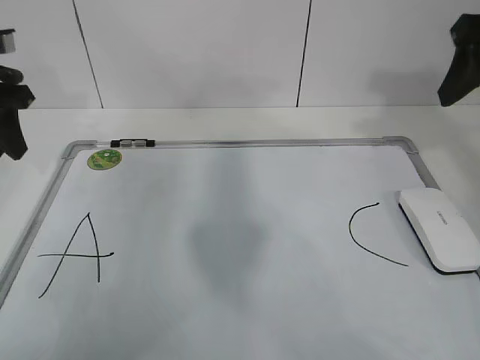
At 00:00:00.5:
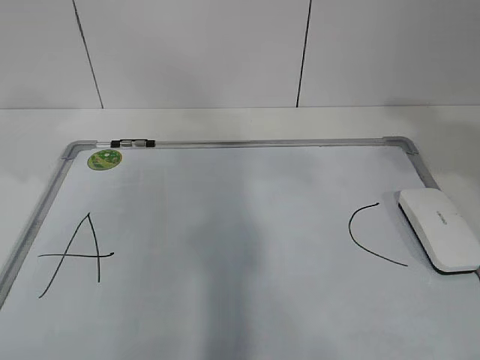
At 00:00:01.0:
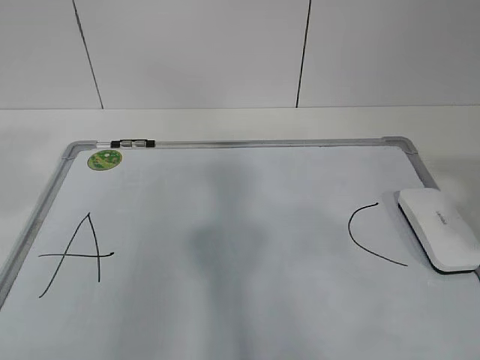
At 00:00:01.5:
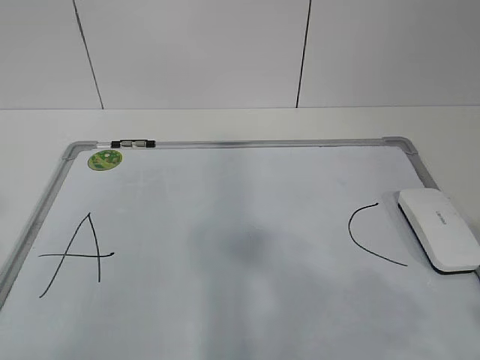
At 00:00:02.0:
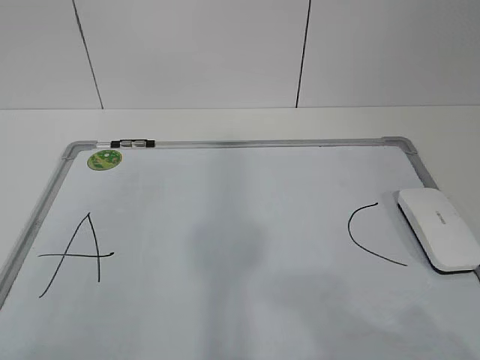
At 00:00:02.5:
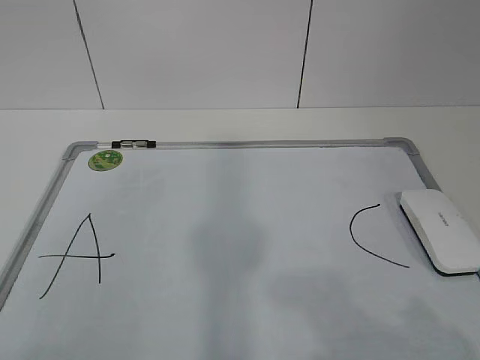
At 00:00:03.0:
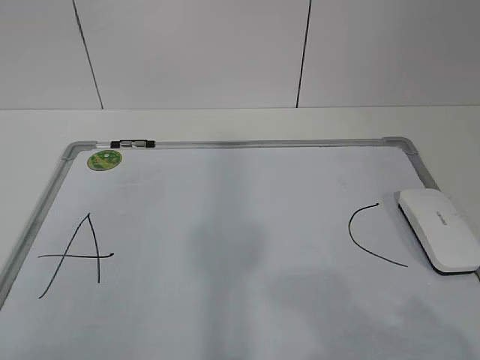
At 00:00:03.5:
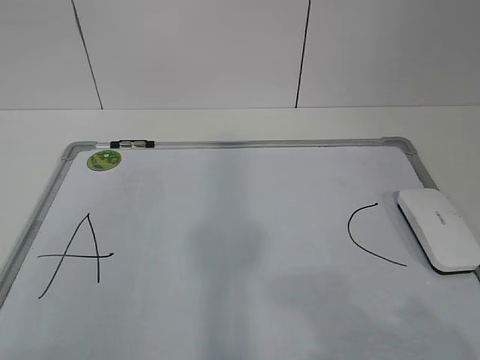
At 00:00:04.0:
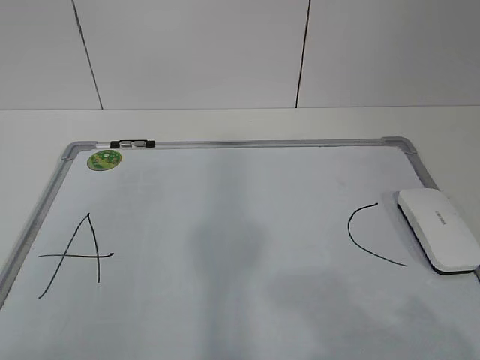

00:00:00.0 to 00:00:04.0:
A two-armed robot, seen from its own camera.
Task of the whole recording: pick up the eraser on the blackboard and erase the letter "B".
00:00:00.0 to 00:00:02.0: Both grippers travel together backward, some 35 cm.

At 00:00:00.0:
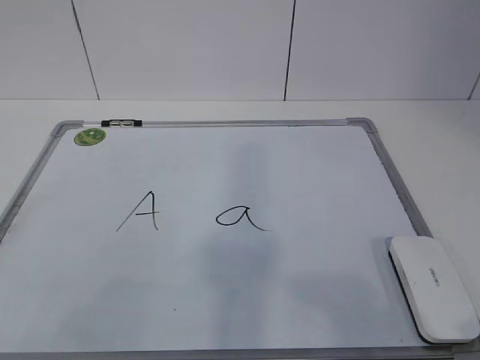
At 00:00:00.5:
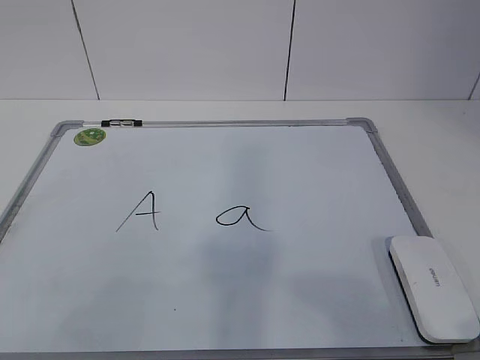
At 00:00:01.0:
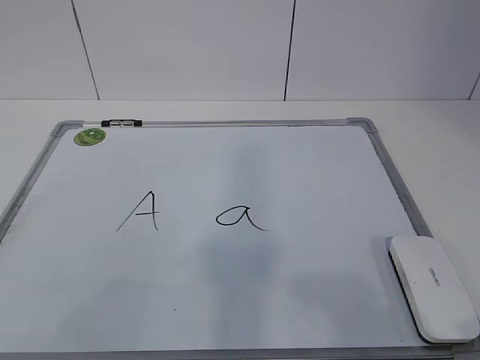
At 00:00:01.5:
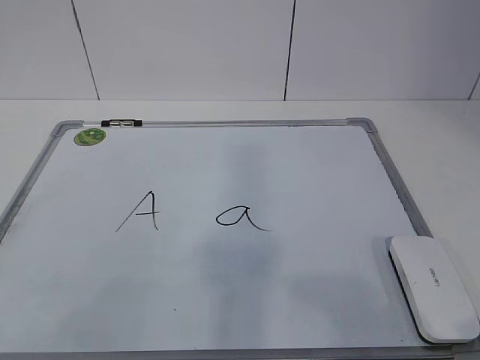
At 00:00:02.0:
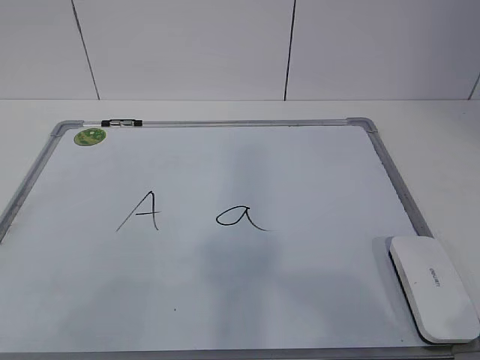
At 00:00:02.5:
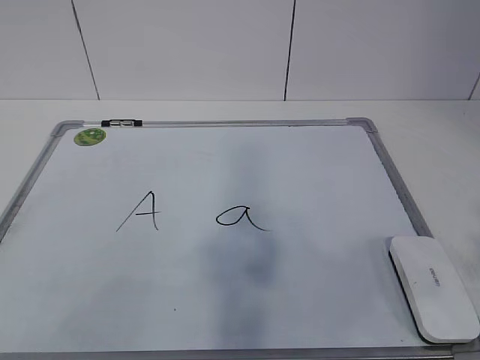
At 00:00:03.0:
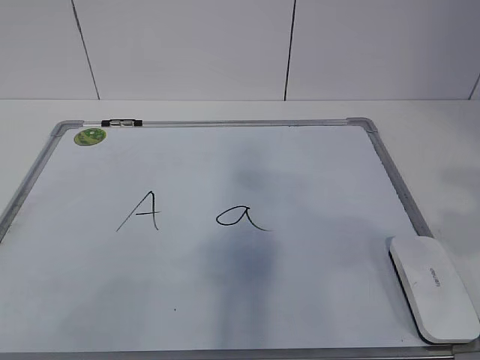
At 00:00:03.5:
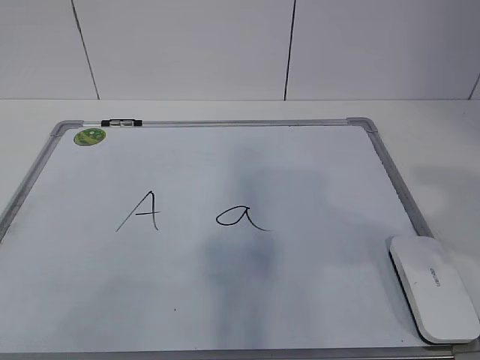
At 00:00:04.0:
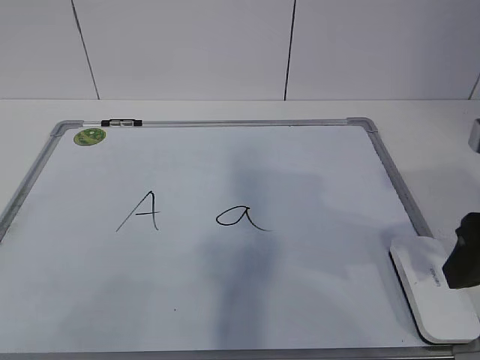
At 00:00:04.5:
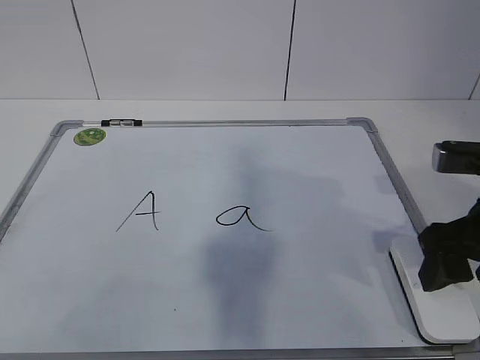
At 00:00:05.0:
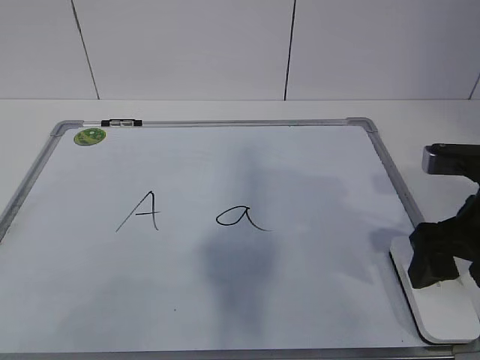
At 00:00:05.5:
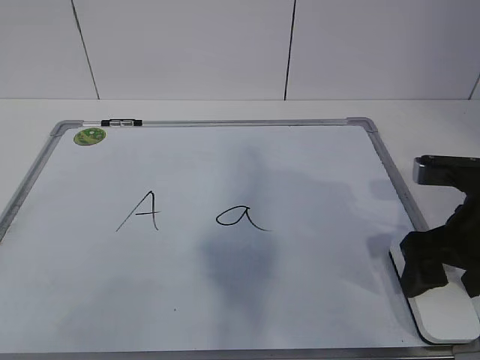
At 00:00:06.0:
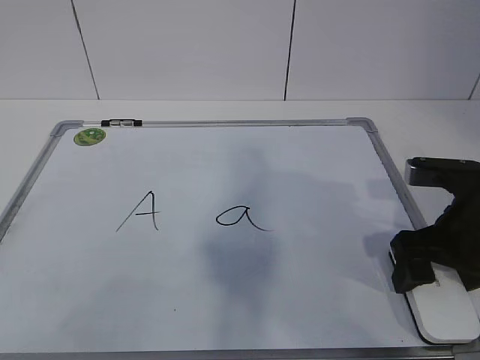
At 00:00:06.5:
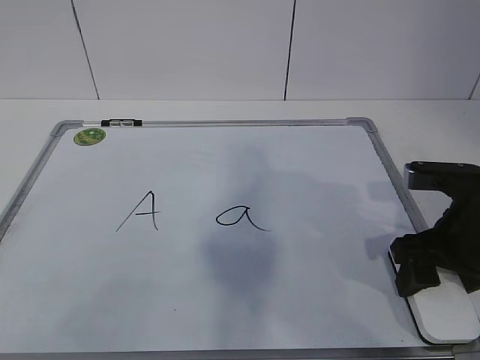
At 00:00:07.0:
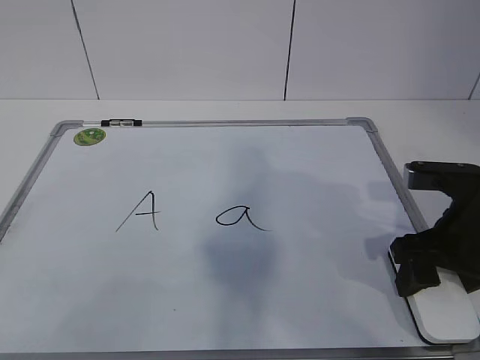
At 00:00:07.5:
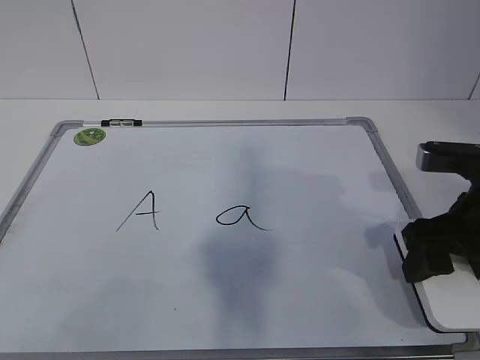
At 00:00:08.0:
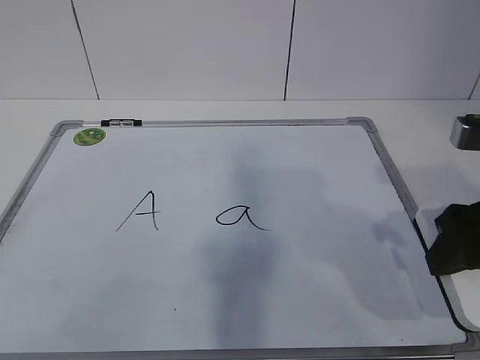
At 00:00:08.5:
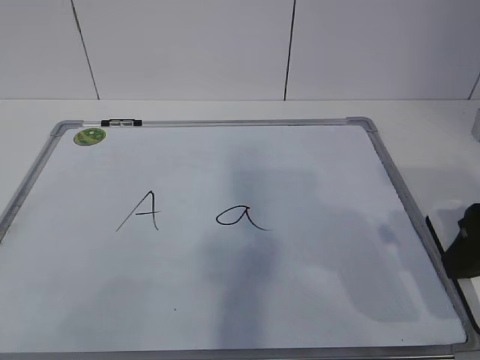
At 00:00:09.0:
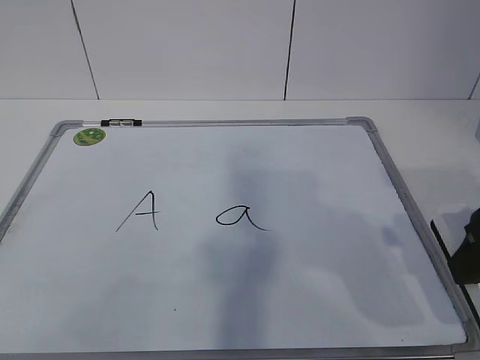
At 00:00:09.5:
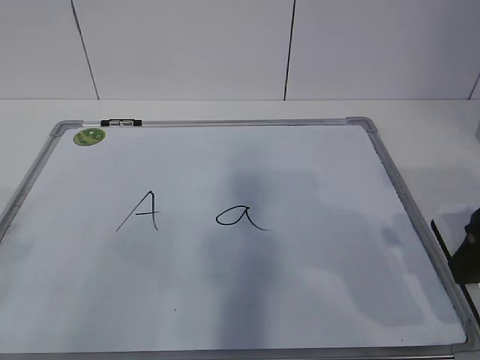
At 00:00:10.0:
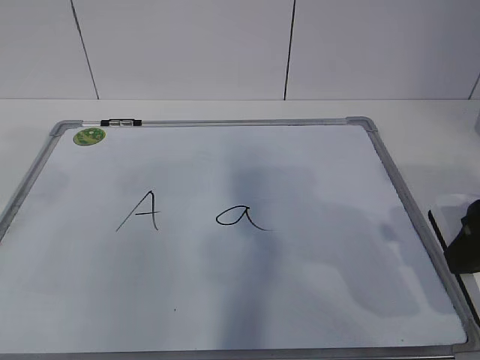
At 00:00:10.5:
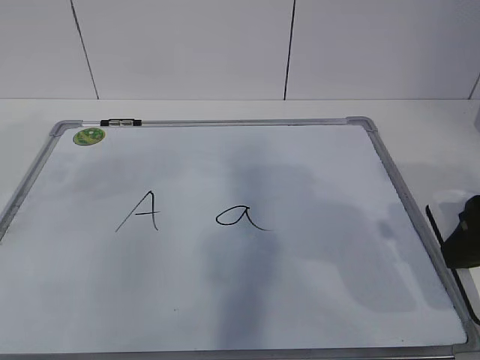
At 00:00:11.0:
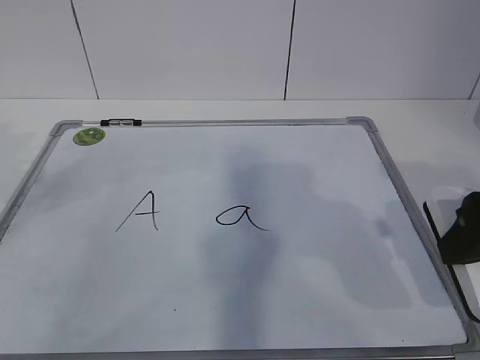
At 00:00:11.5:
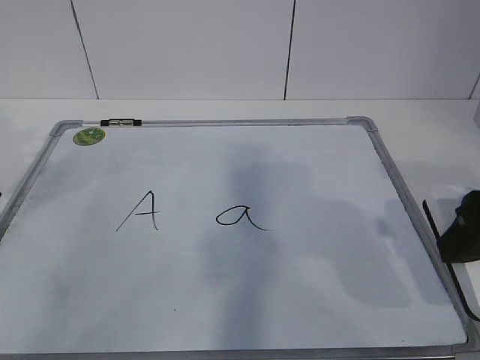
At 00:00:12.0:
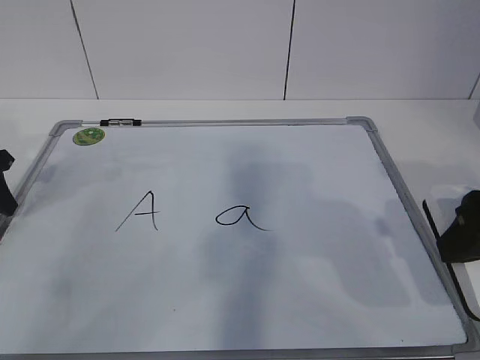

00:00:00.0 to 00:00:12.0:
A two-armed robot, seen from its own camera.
Task of the whole recording: pick up the eraser on the blackboard and erase the letter "a".
Step, 00:00:00.0 to 00:00:05.5: Grab the eraser with your right hand.
Step, 00:00:06.0 to 00:00:10.5: Hold the drawing board steady with your left hand.
00:00:02.0 to 00:00:04.0: The right gripper moves forward, roughly 20 cm.
00:00:04.0 to 00:00:06.0: The right gripper travels downward and forward by approximately 10 cm, and opens its fingers.
00:00:06.0 to 00:00:08.0: The right gripper moves upward, approximately 5 cm, and closes up.
00:00:10.0 to 00:00:12.0: The left gripper travels forward and downward by some 20 cm, and closes.

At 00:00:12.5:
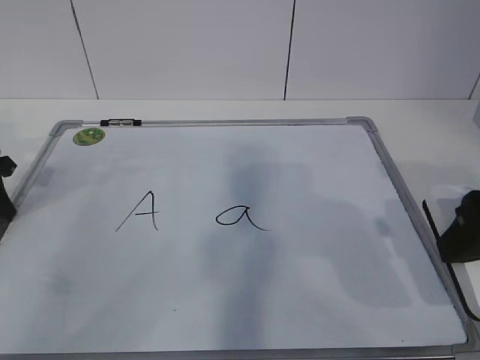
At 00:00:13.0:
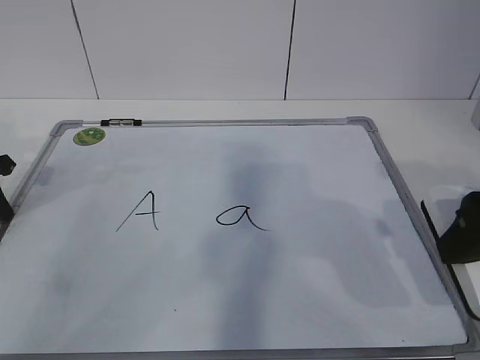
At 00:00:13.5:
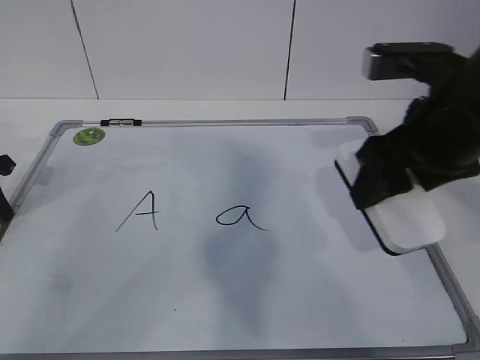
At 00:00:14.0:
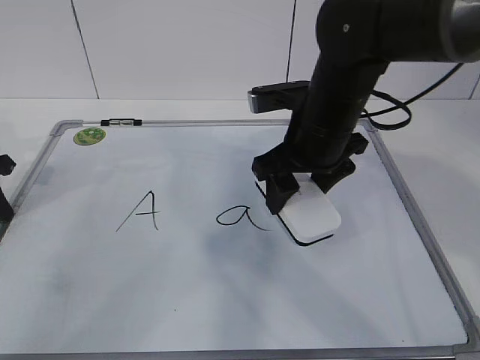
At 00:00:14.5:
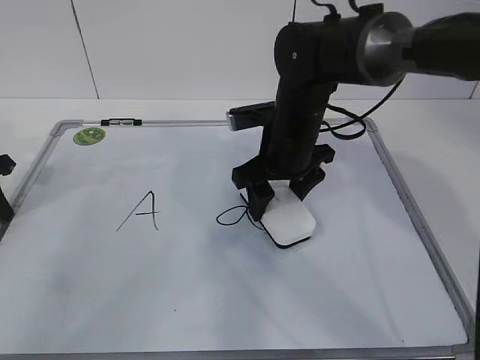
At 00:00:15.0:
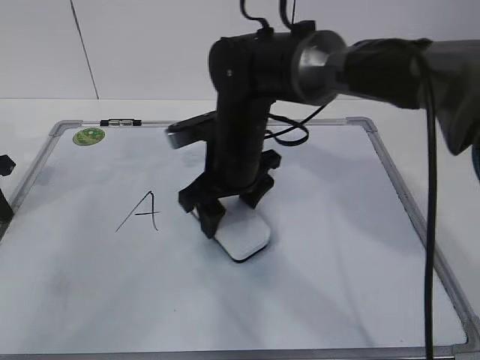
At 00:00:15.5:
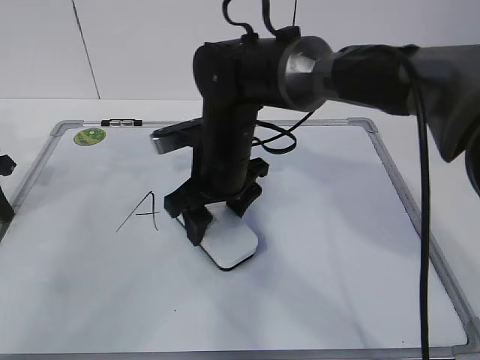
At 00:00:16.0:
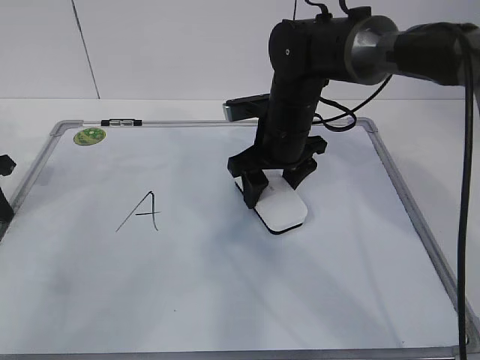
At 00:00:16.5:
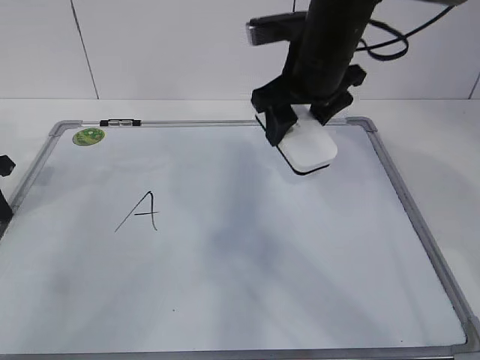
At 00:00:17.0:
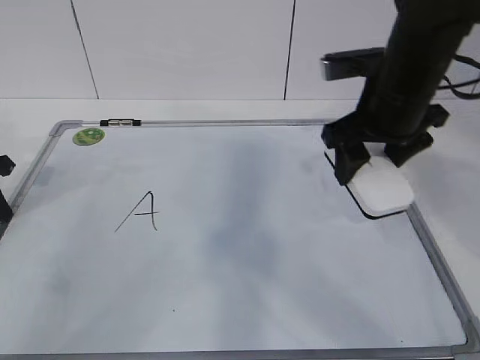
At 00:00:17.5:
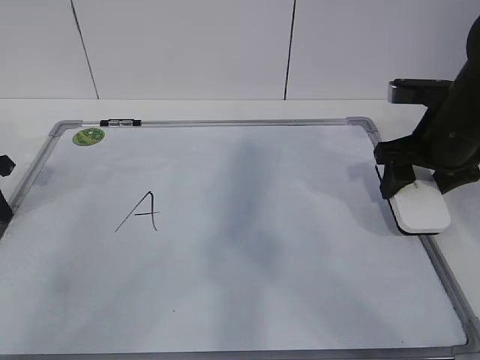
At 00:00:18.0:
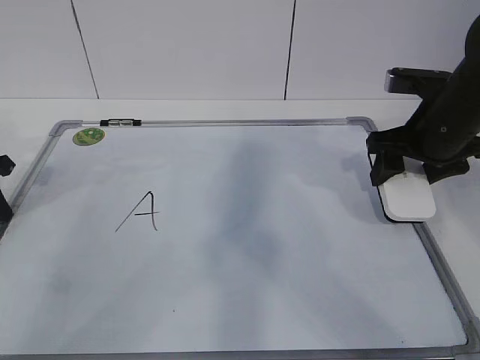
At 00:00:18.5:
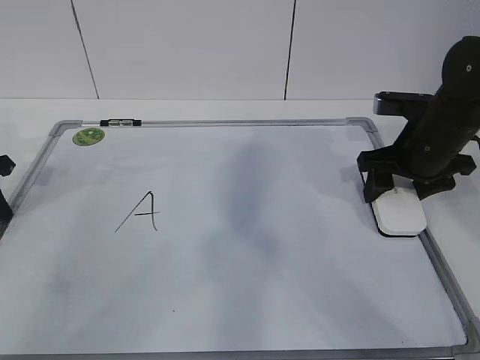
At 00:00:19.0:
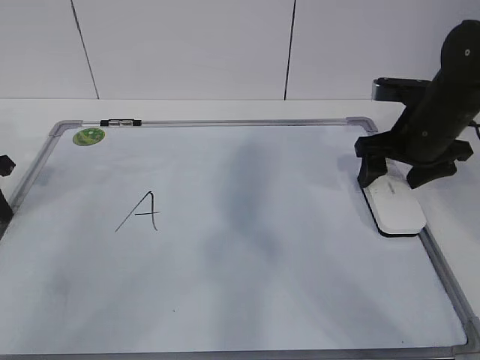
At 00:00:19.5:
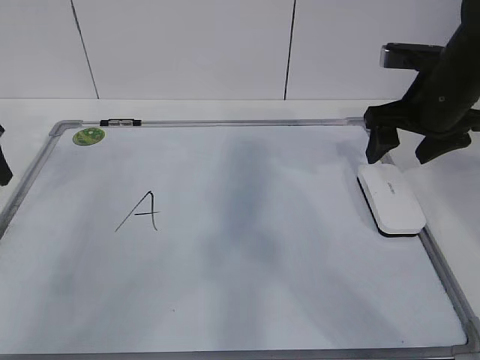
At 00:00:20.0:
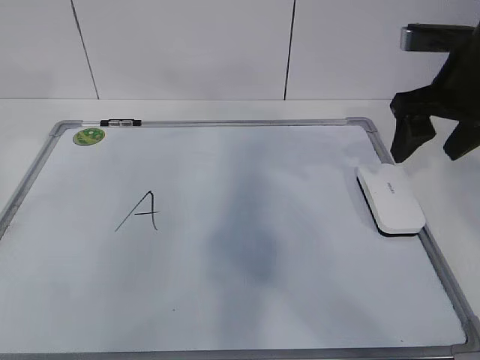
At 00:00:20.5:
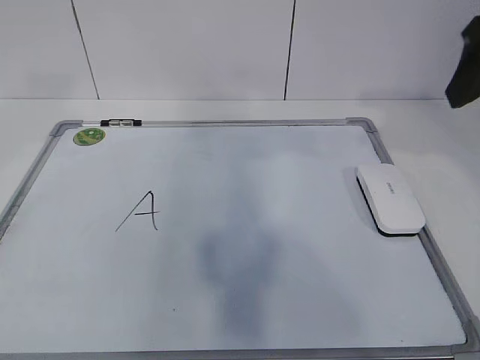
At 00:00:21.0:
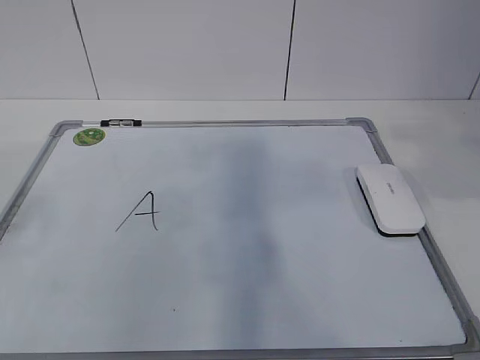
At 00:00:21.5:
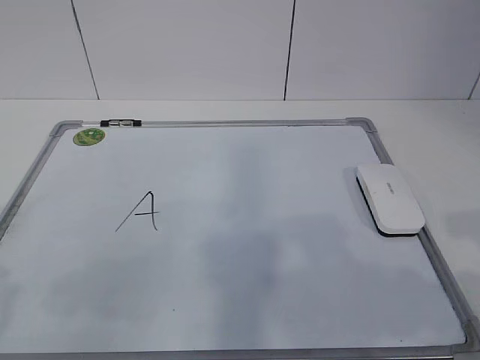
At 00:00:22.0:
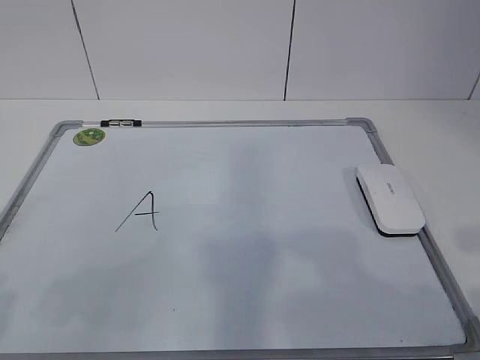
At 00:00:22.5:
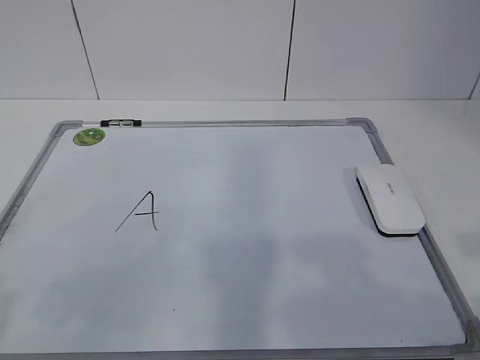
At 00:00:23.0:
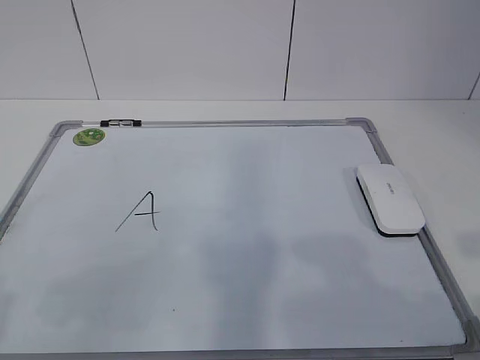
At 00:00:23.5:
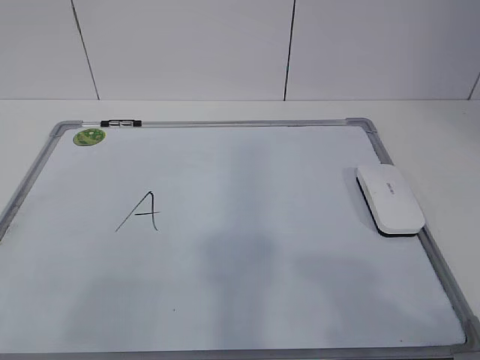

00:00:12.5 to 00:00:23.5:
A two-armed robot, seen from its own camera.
Task of the whole recording: pick up the eraser on the blackboard and erase the letter "a".
Step, 00:00:13.5 to 00:00:15.5: Put down the eraser with your right hand.
00:00:12.5 to 00:00:14.5: The right gripper is displaced forward, to the left and downward by some 25 cm.
00:00:14.5 to 00:00:16.0: The right gripper reaches some 10 cm to the left, then returns.
00:00:16.0 to 00:00:18.0: The right gripper moves to the right, some 15 cm.
00:00:18.0 to 00:00:20.0: The left gripper heads upward, covering roughly 20 cm, and opens up. The right gripper is displaced upward by about 5 cm, and opens its fingers.
00:00:20.0 to 00:00:21.5: The right gripper goes about 25 cm backward.
